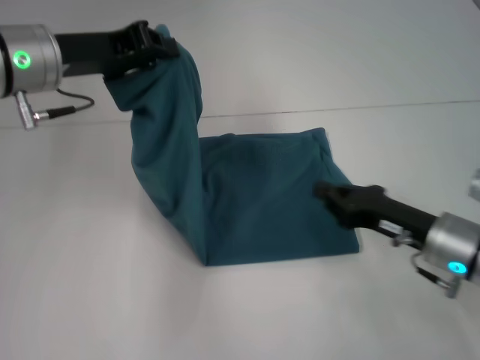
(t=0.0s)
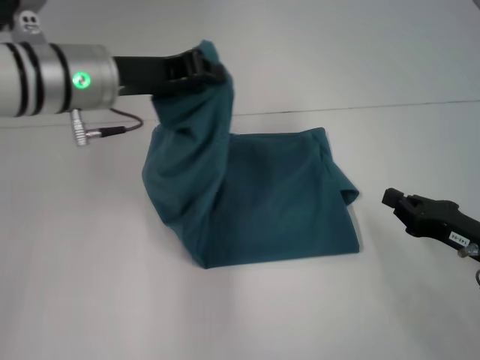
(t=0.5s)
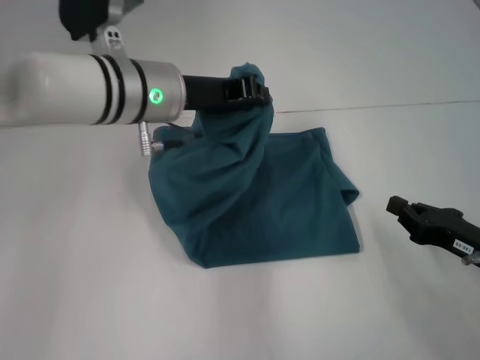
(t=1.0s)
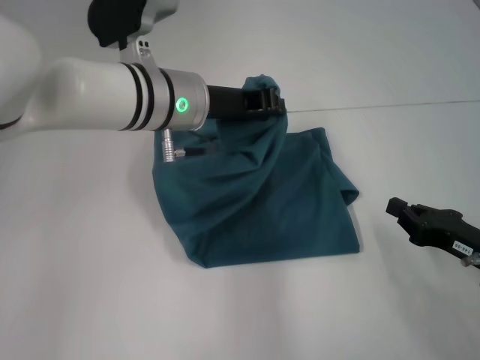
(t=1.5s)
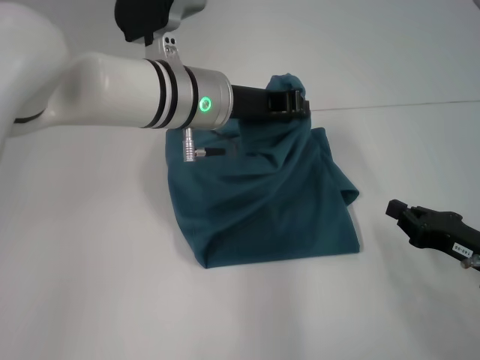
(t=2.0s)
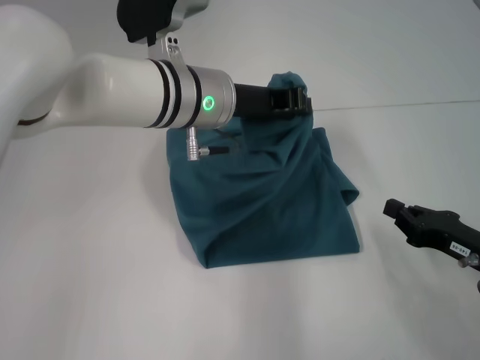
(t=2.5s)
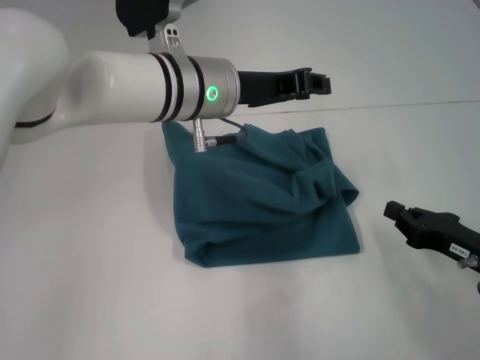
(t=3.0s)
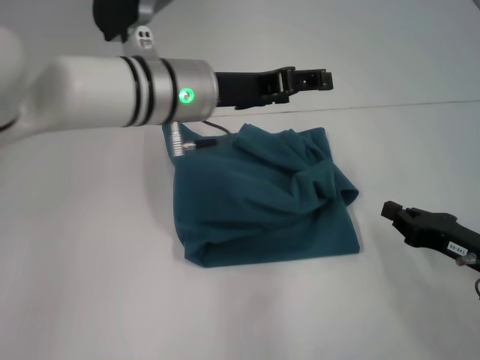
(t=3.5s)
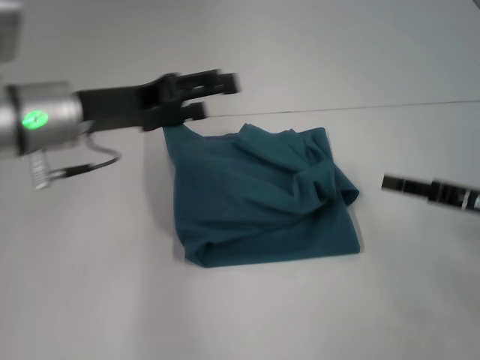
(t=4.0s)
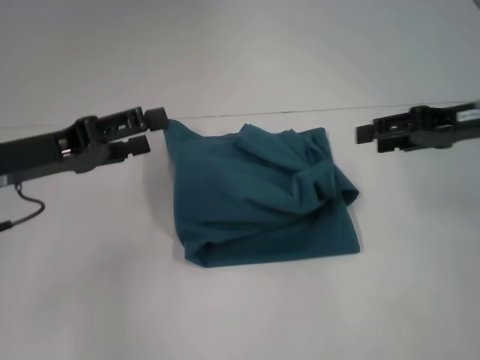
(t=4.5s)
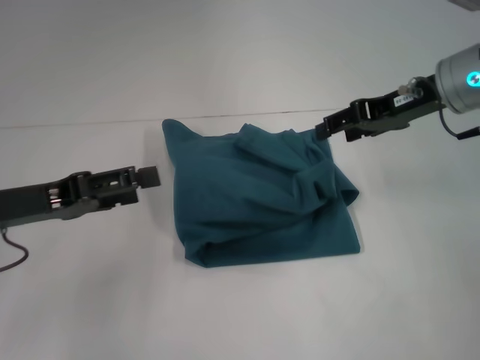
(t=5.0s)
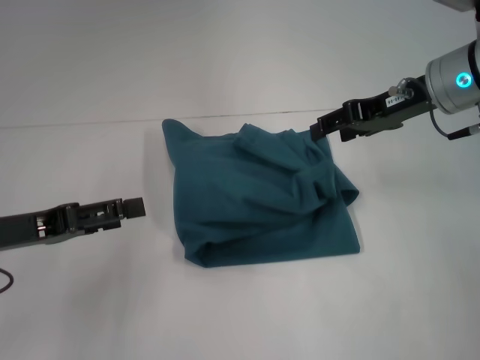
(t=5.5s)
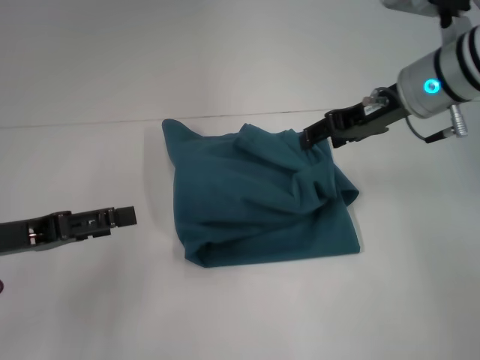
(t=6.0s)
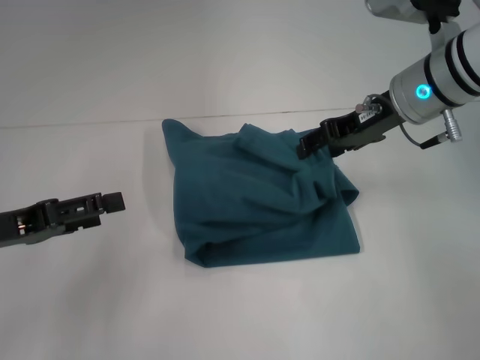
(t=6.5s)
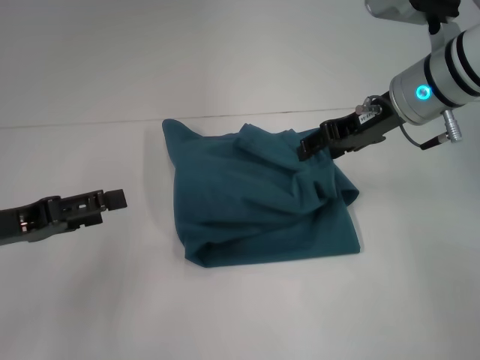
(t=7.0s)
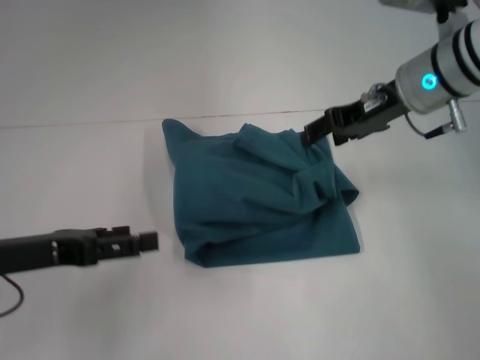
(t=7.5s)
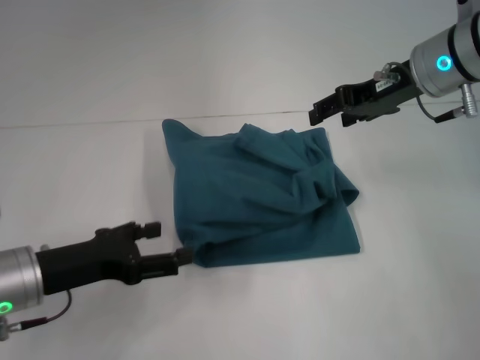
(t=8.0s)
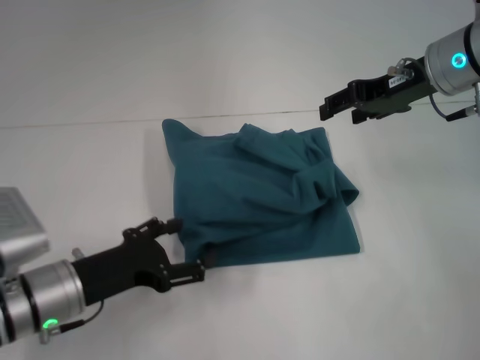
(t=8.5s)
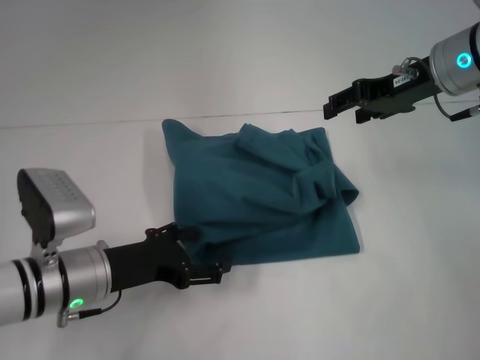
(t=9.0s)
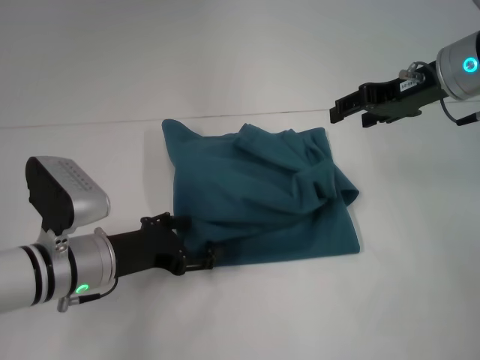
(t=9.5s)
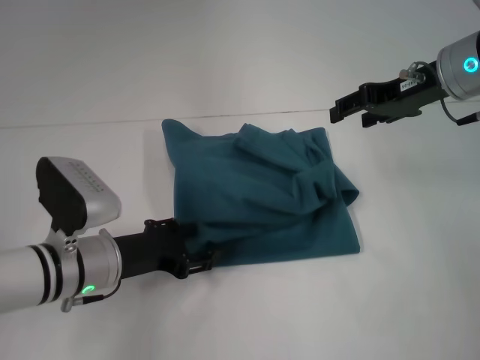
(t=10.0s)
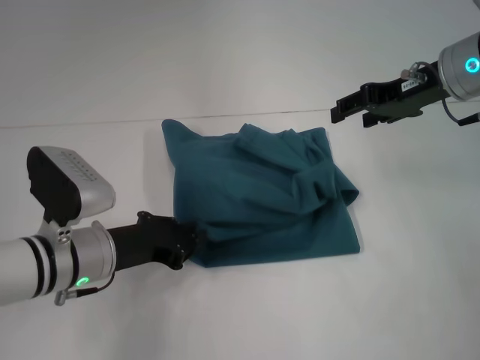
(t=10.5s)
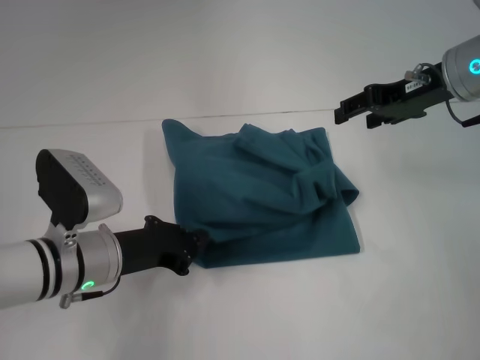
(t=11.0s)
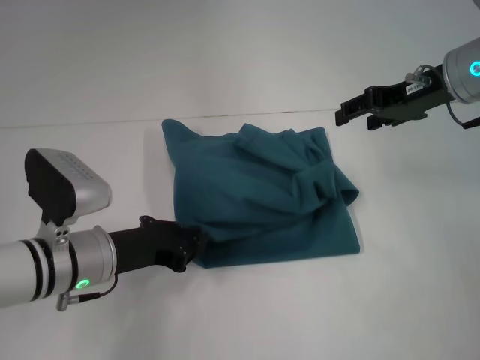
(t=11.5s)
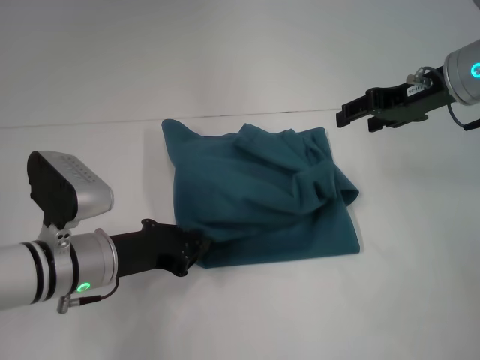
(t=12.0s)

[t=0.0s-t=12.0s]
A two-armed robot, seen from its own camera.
Step, t=0.0s to t=3.0s: Fold the clothes to the left.
t=0.0s to t=2.0s: The left gripper moves to the right, approximately 15 cm. The right gripper heads to the right, covering about 5 cm.
t=2.0s to t=4.0s: The right gripper heads upward, covering about 5 cm; the left gripper is displaced to the left by some 15 cm, and opens up.
t=4.0s to t=6.0s: The left gripper moves to the left, backward and downward, some 15 cm. The right gripper moves forward, to the left and upward, roughly 20 cm, and opens.
t=6.0s to t=8.0s: The left gripper travels downward and to the right by roughly 10 cm.
t=8.0s to t=10.0s: The left gripper heads to the right, covering about 5 cm.
t=10.0s to t=12.0s: The left gripper closes up.

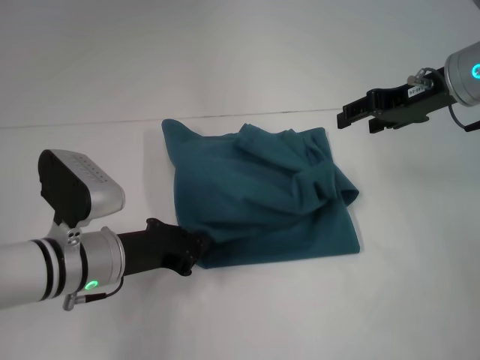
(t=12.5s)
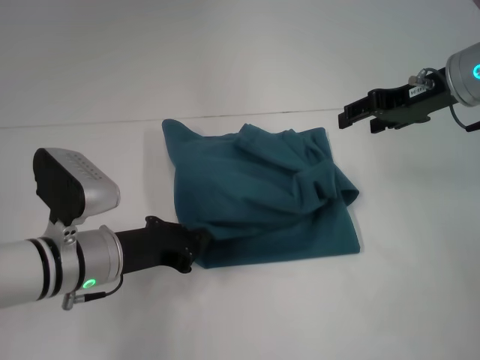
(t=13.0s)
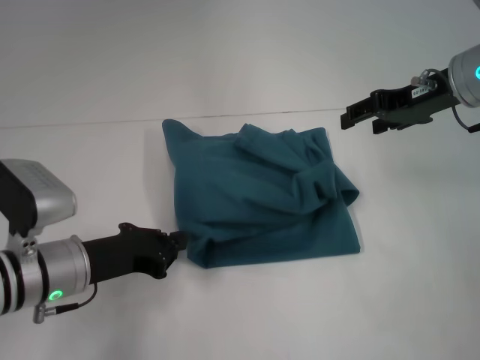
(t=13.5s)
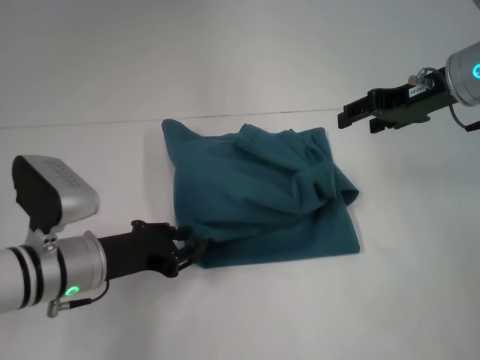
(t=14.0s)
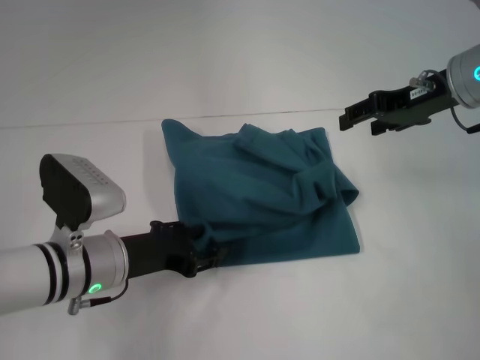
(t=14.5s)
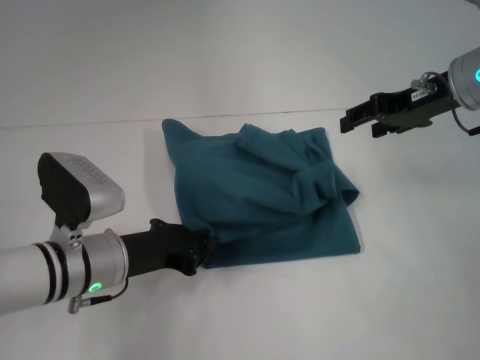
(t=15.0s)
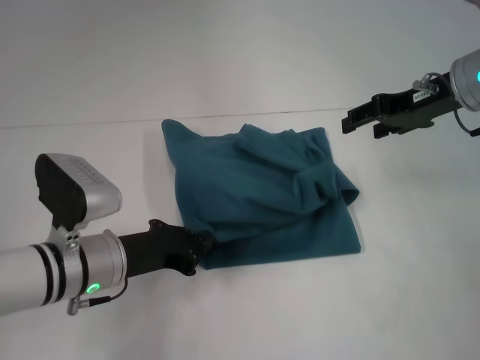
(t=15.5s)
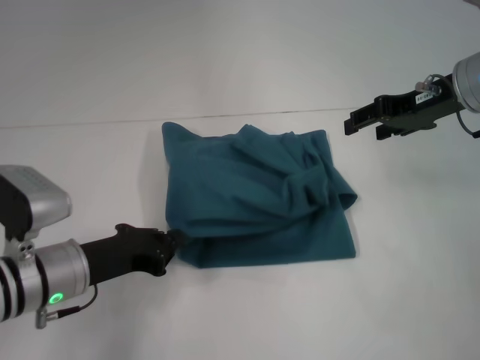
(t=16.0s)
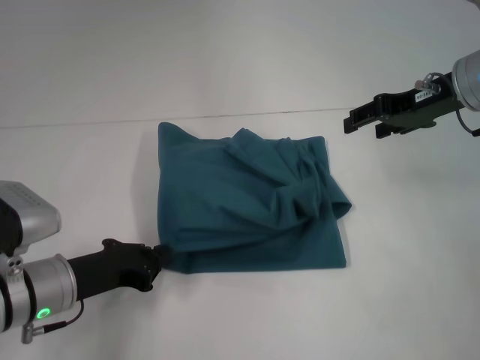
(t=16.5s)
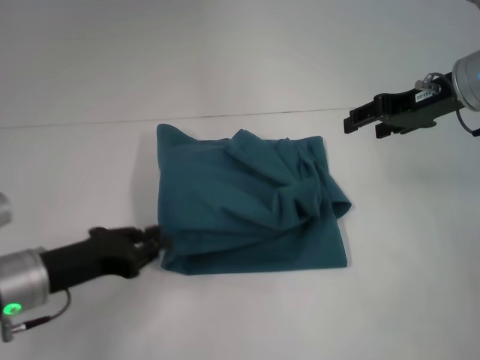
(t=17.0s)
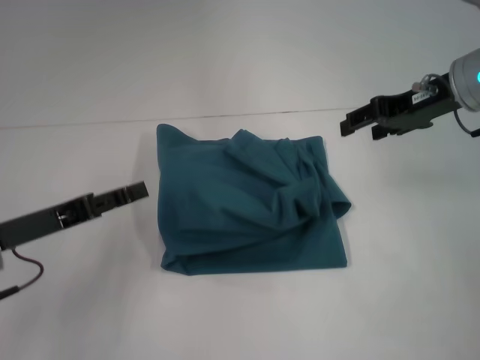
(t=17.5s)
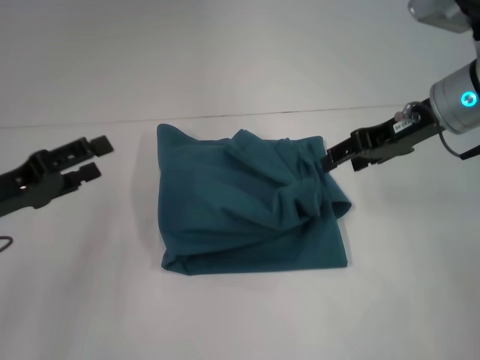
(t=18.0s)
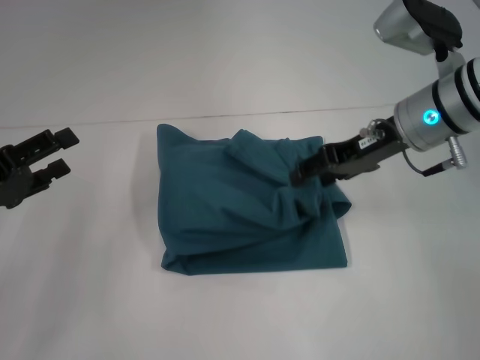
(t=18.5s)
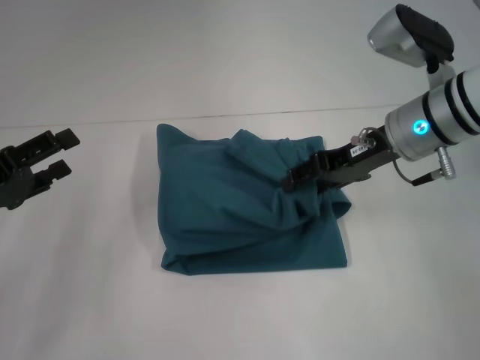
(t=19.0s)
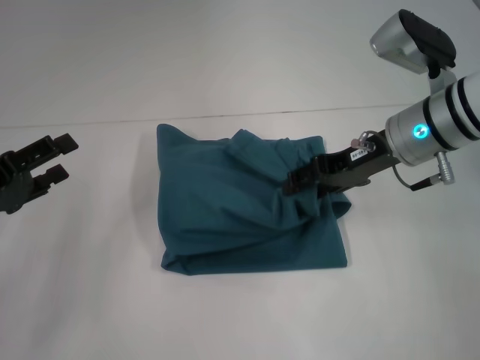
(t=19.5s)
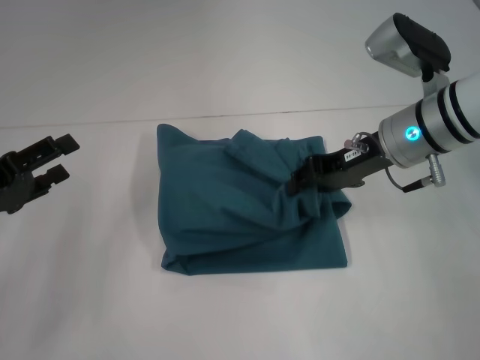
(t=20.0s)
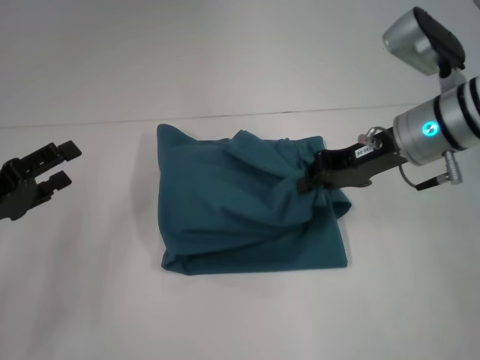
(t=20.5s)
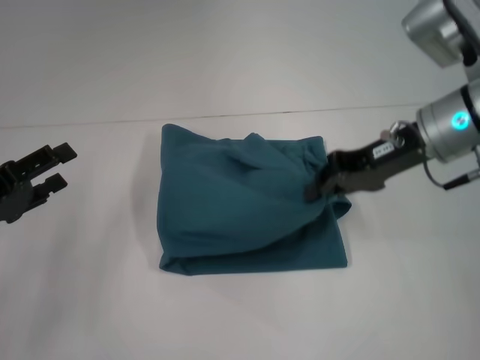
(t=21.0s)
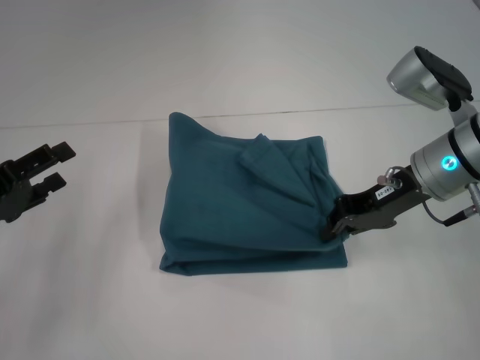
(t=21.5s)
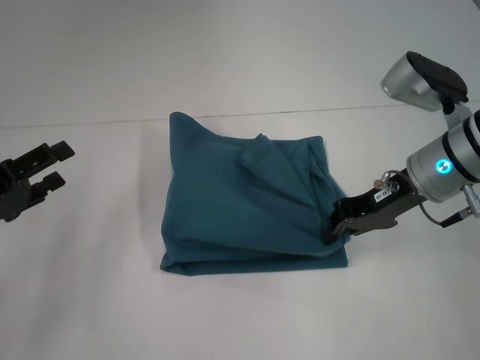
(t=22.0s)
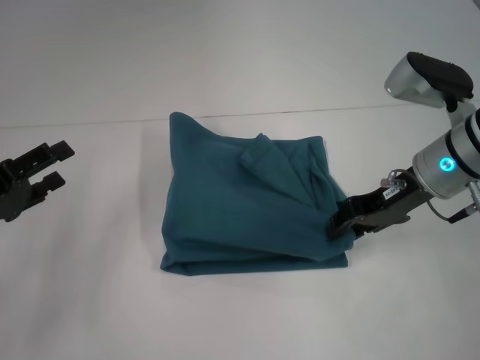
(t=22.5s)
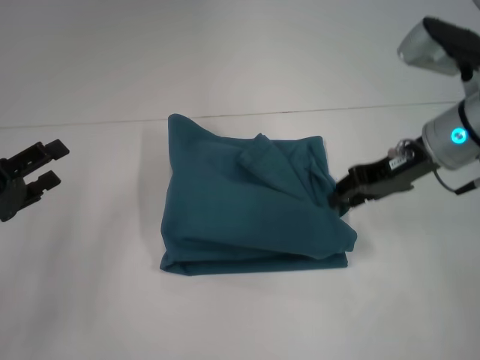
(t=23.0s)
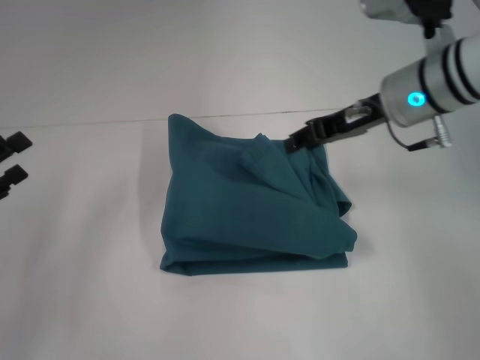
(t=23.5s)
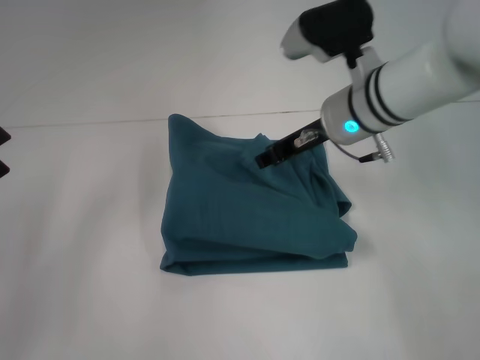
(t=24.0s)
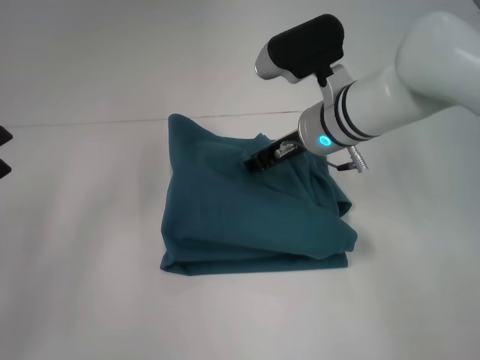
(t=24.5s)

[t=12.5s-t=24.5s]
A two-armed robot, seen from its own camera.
t=12.5s to t=14.5s: The left gripper opens up.
t=14.5s to t=16.5s: The left gripper moves about 5 cm, and closes.
t=16.5s to t=18.5s: The right gripper moves to the left, some 5 cm. The left gripper is displaced to the left and upward by approximately 10 cm, and opens its fingers.
t=18.5s to t=20.5s: The right gripper closes.
t=20.5s to t=22.5s: The grippers stay close to where they were, moving slightly.
t=22.5s to t=24.5s: The right gripper moves to the left, some 10 cm.

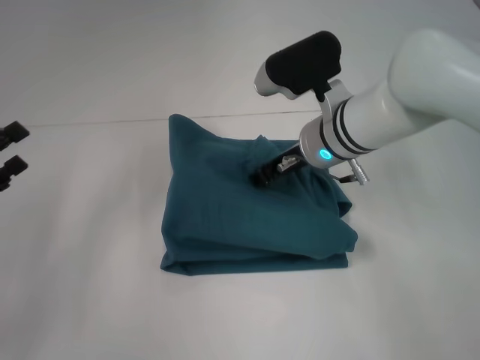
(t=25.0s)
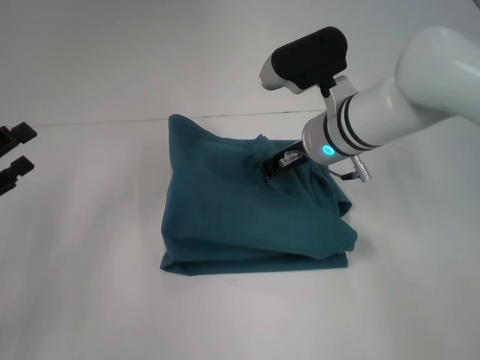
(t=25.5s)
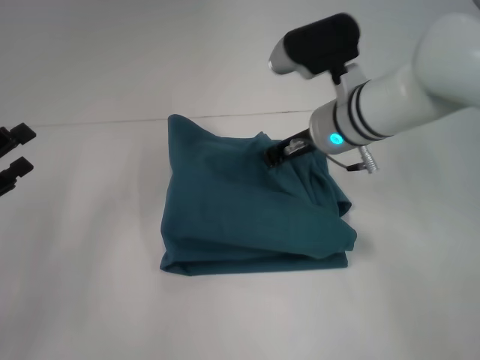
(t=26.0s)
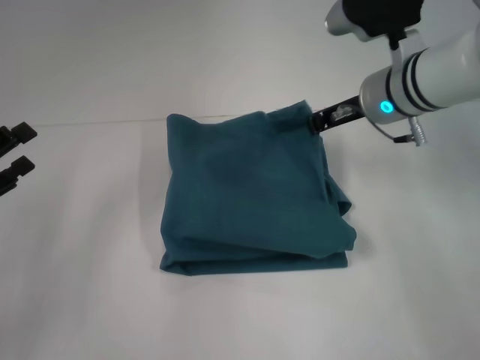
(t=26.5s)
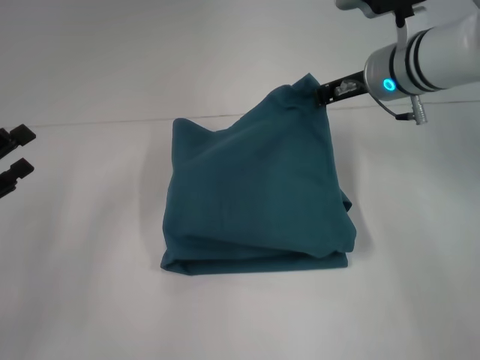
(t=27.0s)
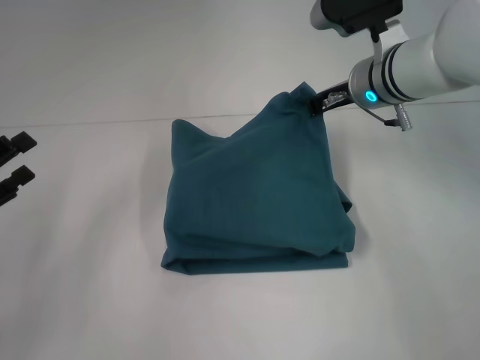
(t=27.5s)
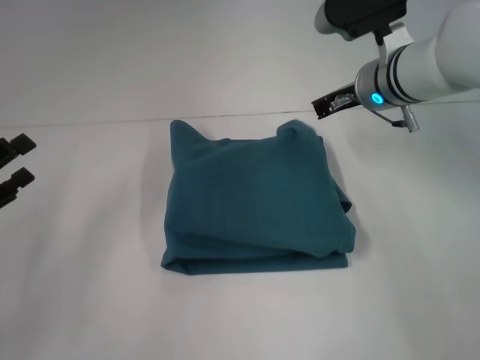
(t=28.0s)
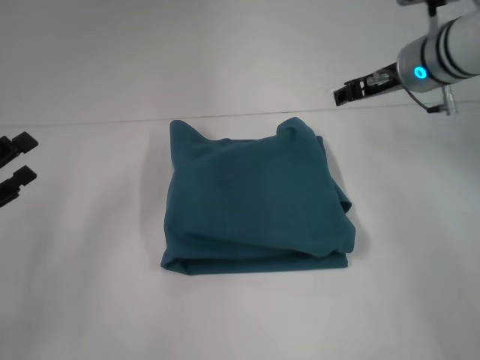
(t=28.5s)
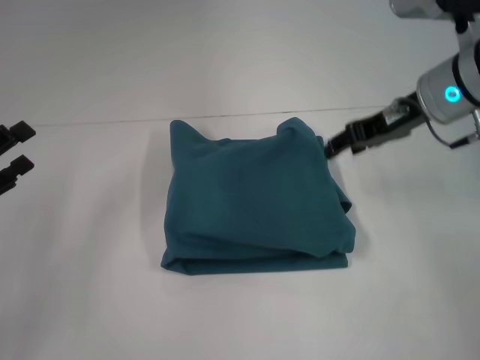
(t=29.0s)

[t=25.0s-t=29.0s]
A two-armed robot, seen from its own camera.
t=25.0s to t=27.0s: The right gripper shifts approximately 10 cm to the right and upward.
t=27.0s to t=29.0s: The right gripper moves some 5 cm, and opens its fingers.
